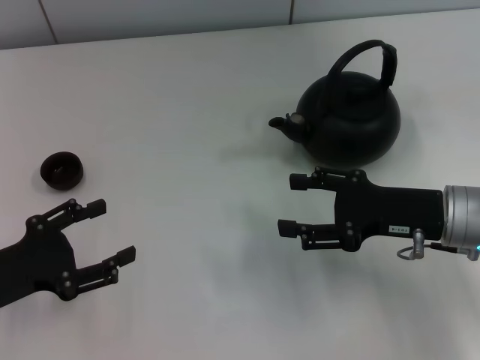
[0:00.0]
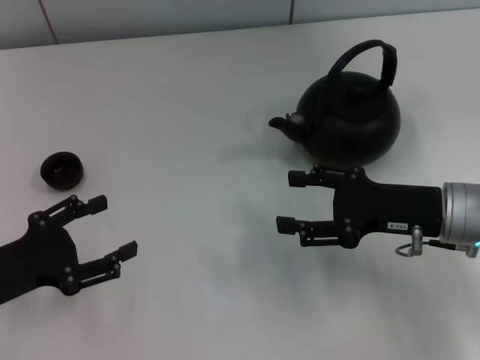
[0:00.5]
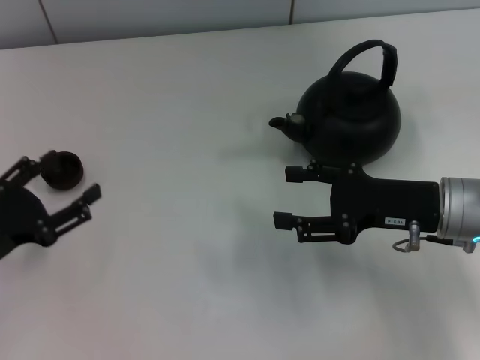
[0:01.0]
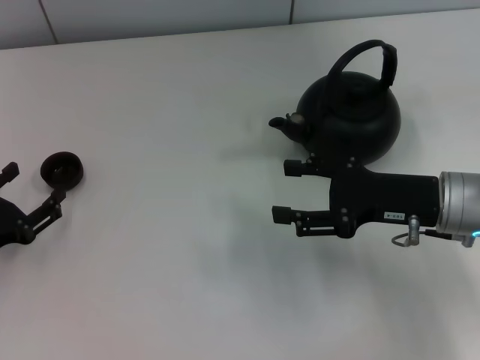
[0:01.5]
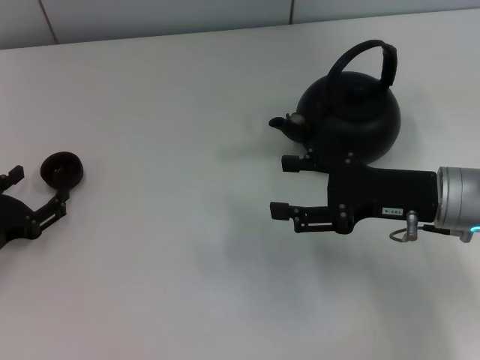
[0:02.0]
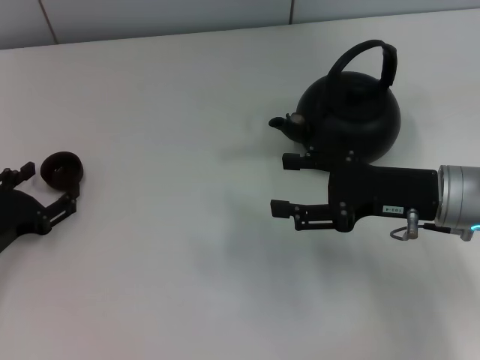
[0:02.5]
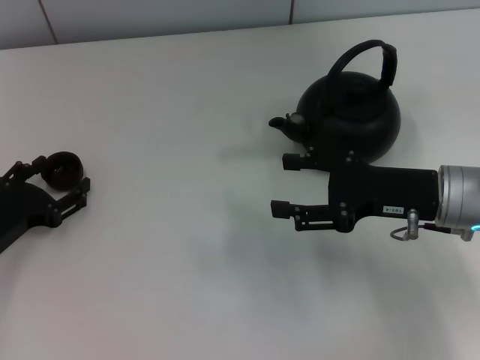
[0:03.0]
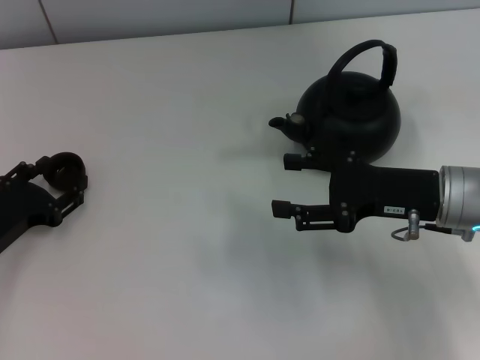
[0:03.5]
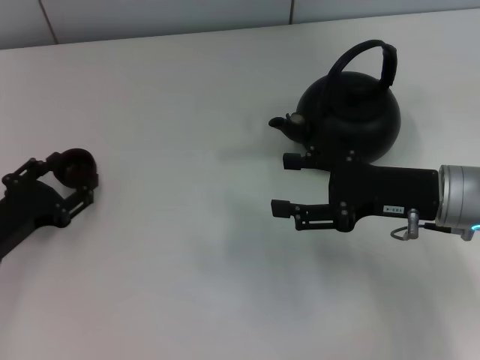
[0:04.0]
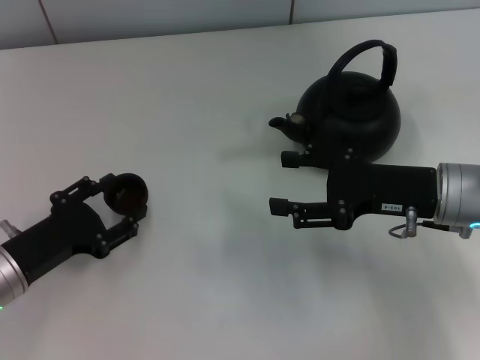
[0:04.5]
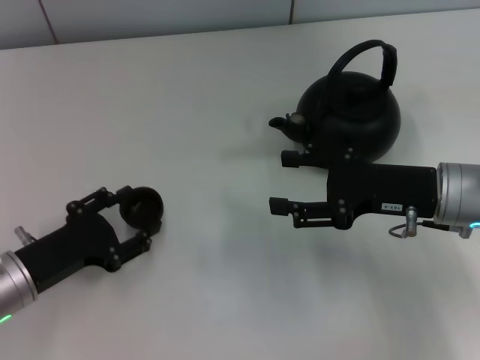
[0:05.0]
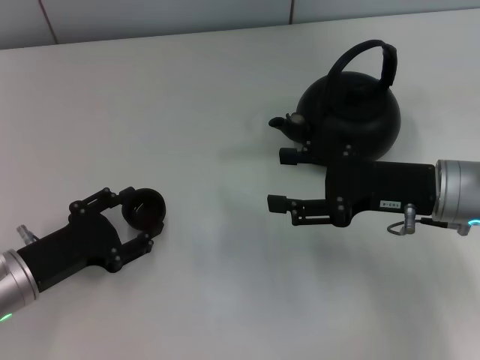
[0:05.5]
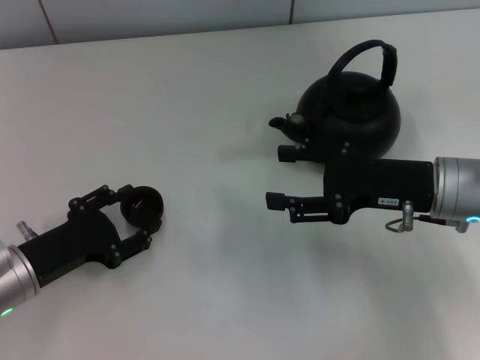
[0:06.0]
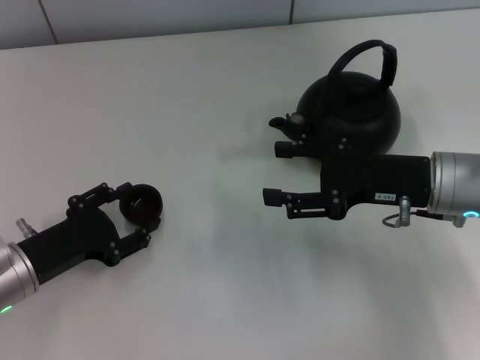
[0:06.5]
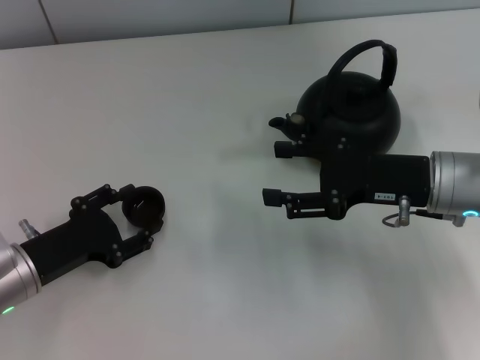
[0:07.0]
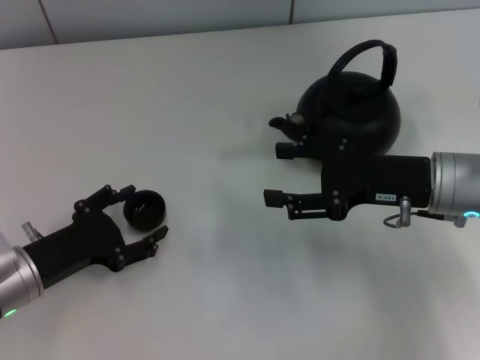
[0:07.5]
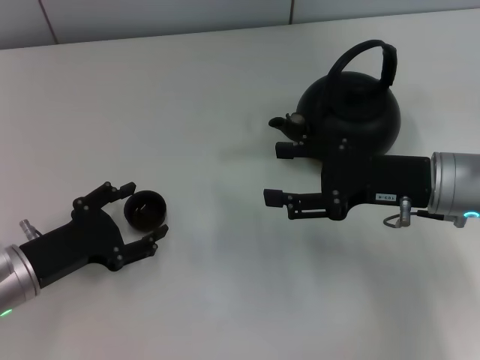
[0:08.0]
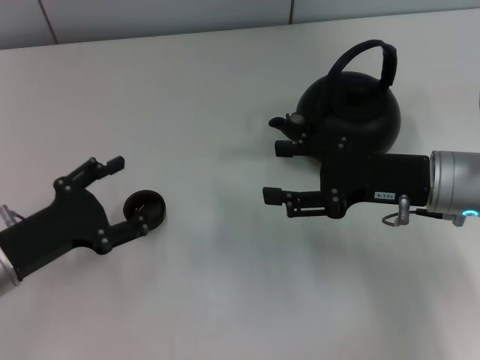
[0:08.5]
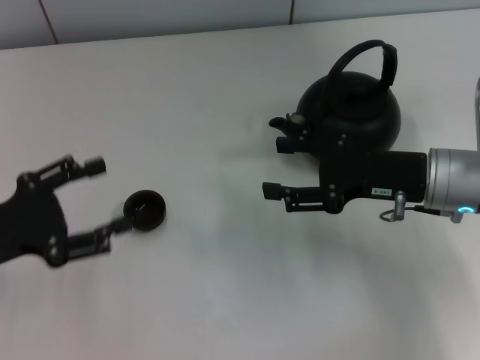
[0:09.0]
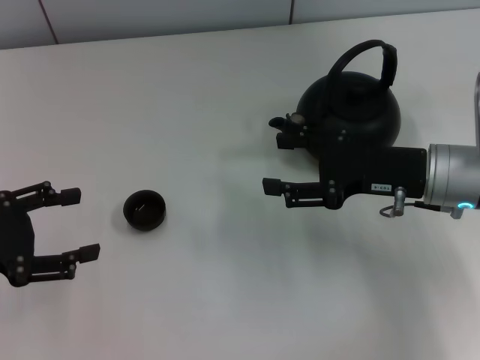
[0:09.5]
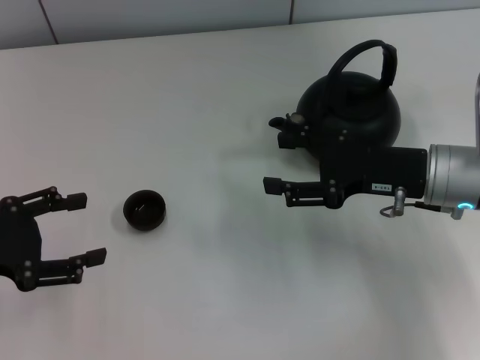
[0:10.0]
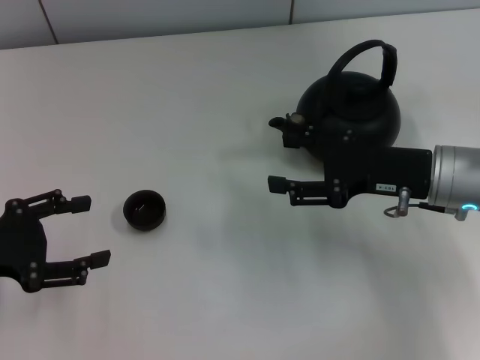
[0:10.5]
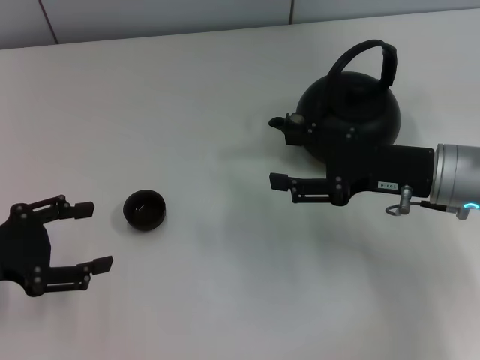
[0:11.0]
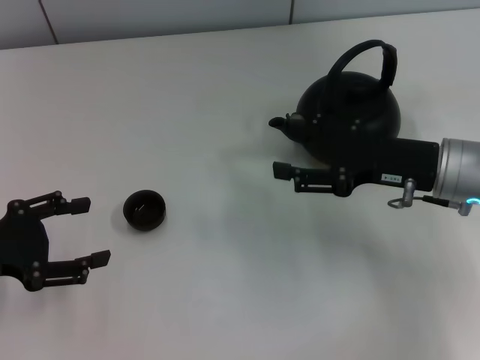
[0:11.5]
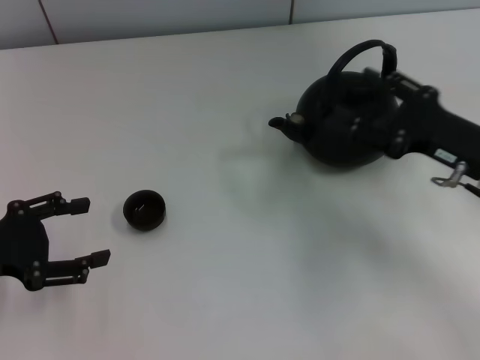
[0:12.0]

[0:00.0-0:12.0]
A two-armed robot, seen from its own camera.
Task of the whole recording: Grasp the handle of the teapot with one hand and pour tea into the teacup.
Step, 0:00.0 to 0:04.0: Pick up the teacup with the left gripper.
Step, 0:04.5 to 0:08.5: Place the teacup in the center of view with the left gripper.
0:00.0 to 0:02.0: The left gripper shifts by roughly 5 cm.
0:02.0 to 0:04.0: The left gripper closes up.
0:04.0 to 0:06.0: There are only small adjustments of the grippers.
0:06.0 to 0:08.0: The left gripper opens up.
0:08.0 to 0:10.0: The left gripper goes about 10 cm upward and to the left.
0:10.0 to 0:12.0: The right gripper shifts about 5 cm to the right.

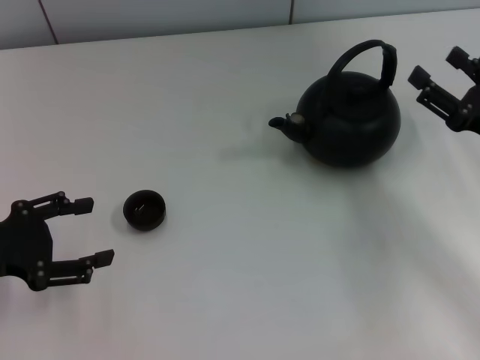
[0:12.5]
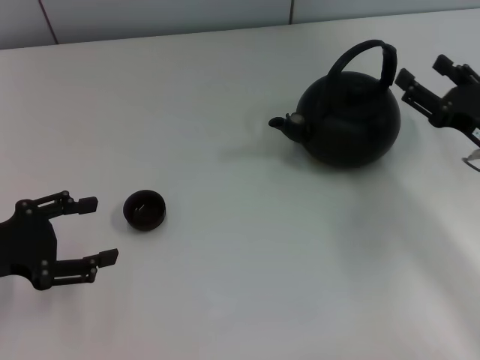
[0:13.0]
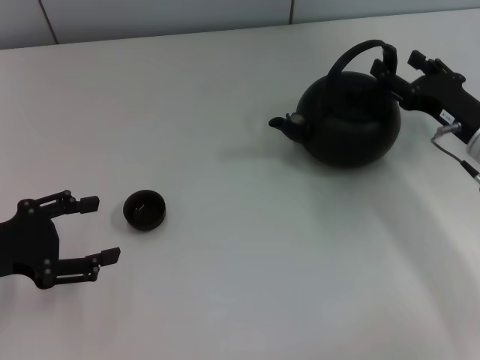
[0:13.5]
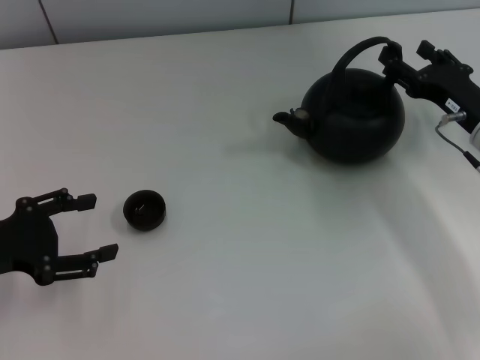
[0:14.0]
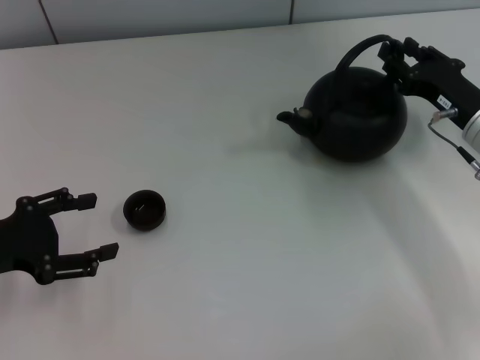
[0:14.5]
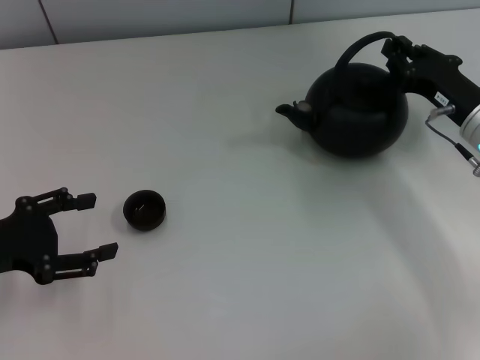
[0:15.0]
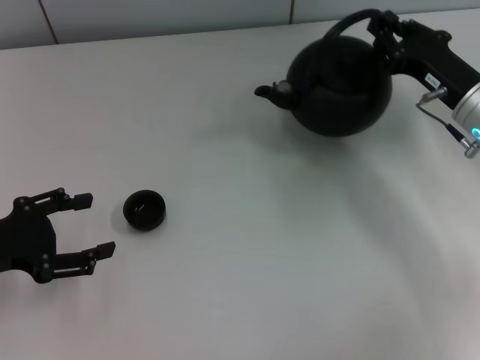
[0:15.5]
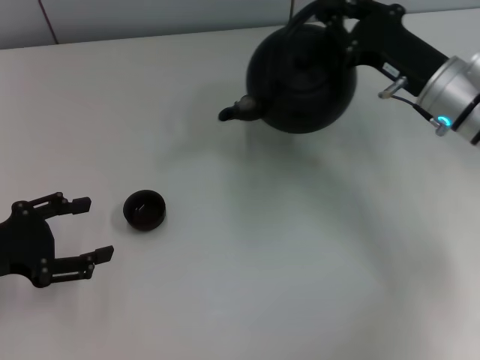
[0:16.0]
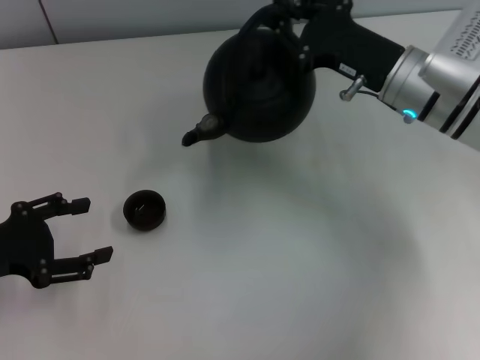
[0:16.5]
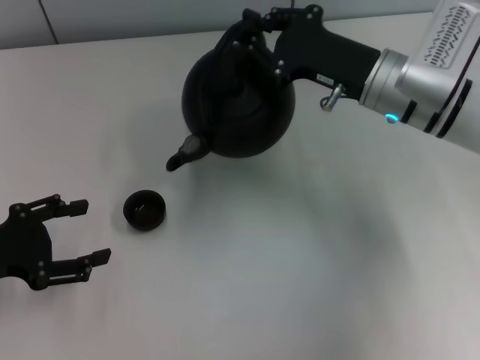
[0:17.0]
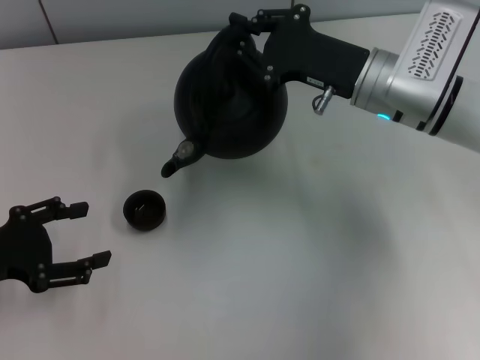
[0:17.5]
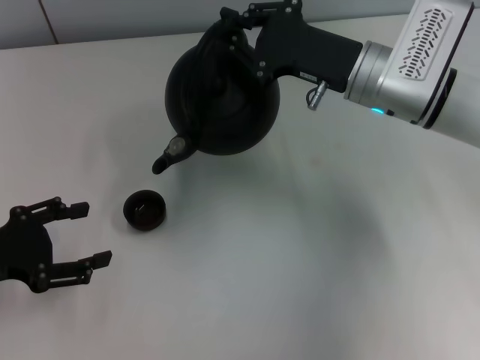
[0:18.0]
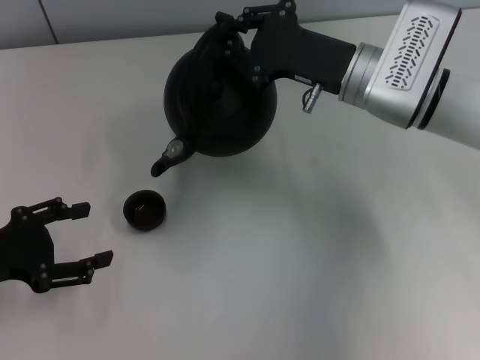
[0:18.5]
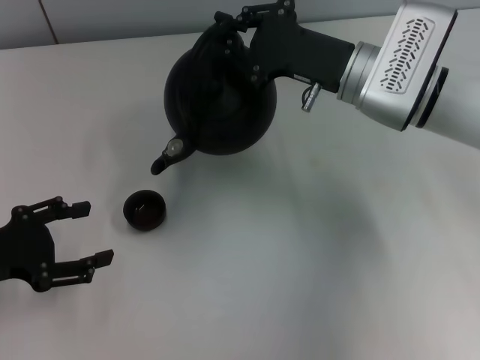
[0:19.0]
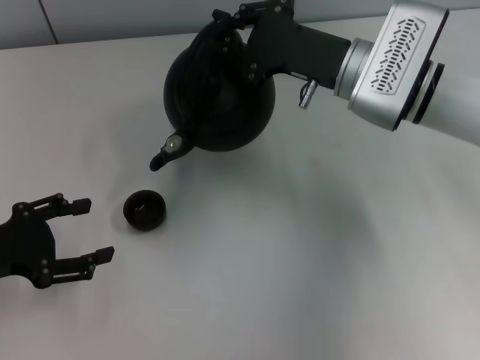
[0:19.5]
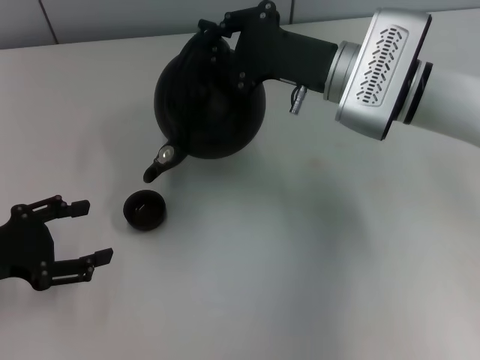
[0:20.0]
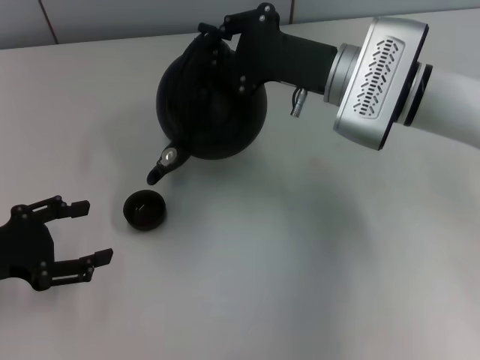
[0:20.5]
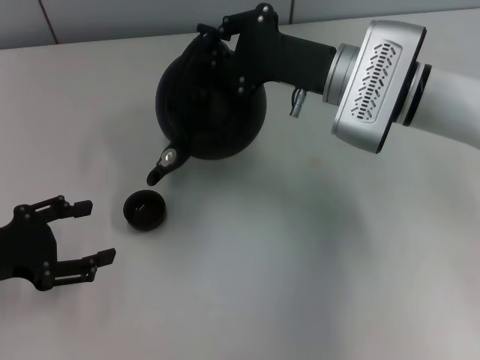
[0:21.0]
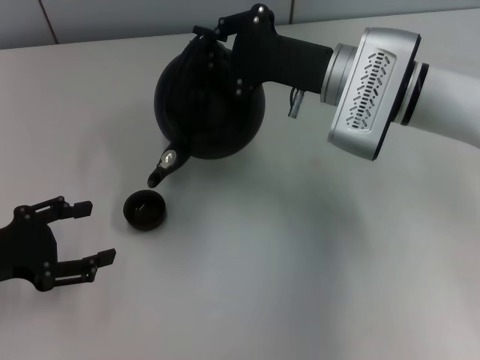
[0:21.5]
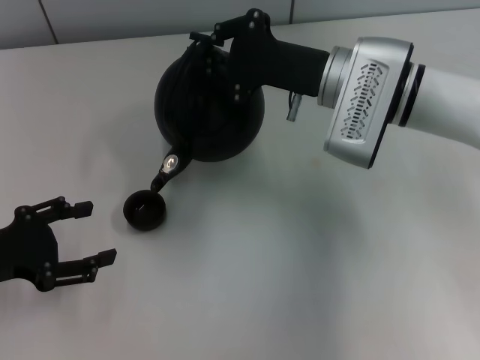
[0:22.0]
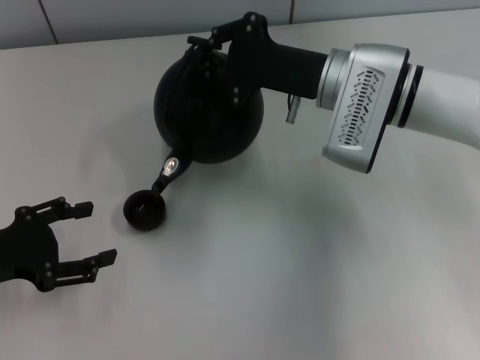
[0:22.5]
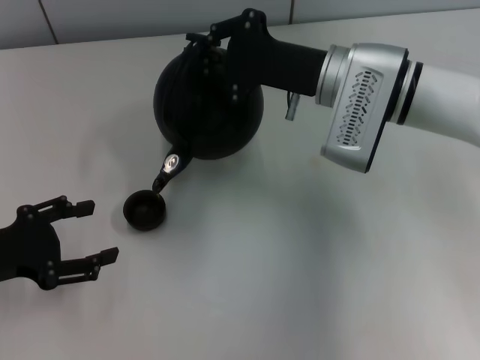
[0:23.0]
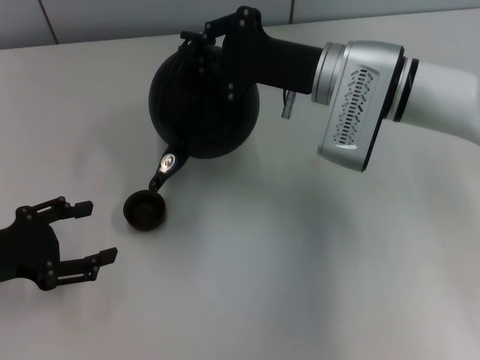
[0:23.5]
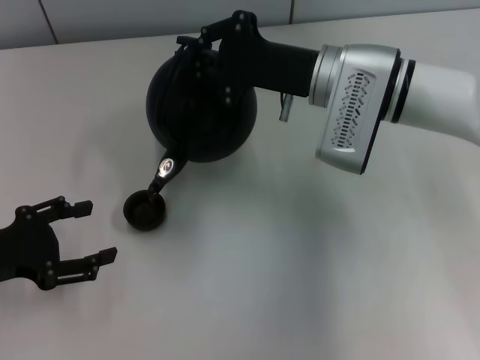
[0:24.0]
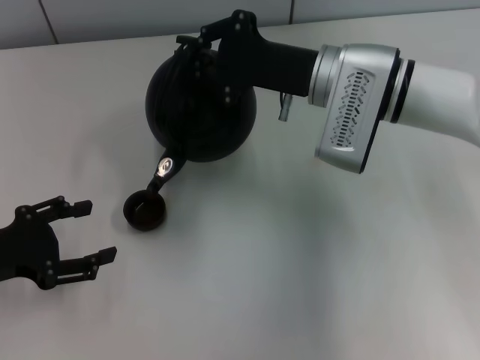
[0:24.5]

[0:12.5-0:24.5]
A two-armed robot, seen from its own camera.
Task of the whole recording: Grasp the handle of the teapot with one hand and pour tea into the teacup.
Step, 0:12.5 to 0:15.5: Pick up the teapot with the right gripper.
0:12.5 to 0:14.5: The right gripper travels forward by some 5 cm.
0:14.5 to 0:16.5: The right gripper travels to the left and upward by about 10 cm, and closes its fingers.
0:16.5 to 0:18.5: There are only small adjustments of the grippers.
0:18.5 to 0:20.5: The grippers move only a little.
0:20.5 to 0:22.5: The grippers make only small movements.
0:22.5 to 0:24.5: Both grippers stay put.

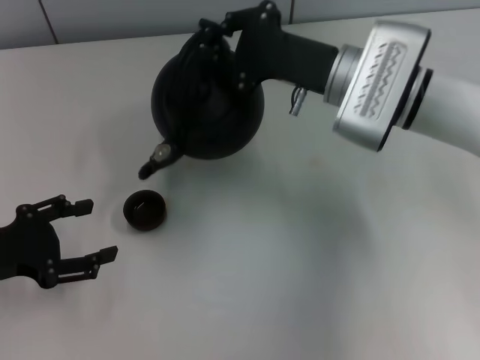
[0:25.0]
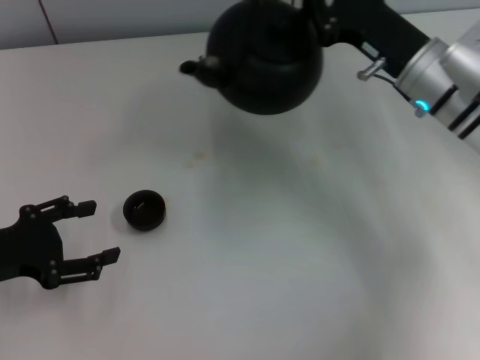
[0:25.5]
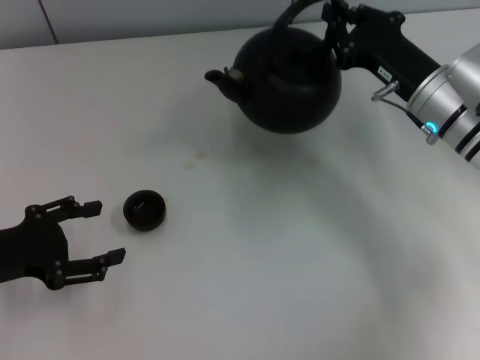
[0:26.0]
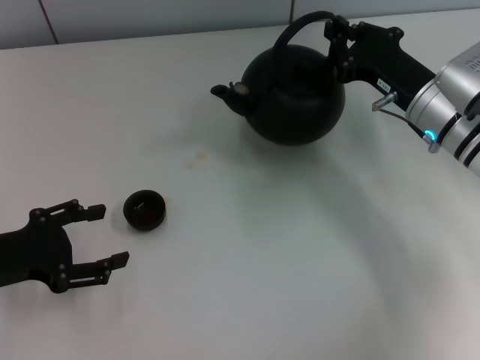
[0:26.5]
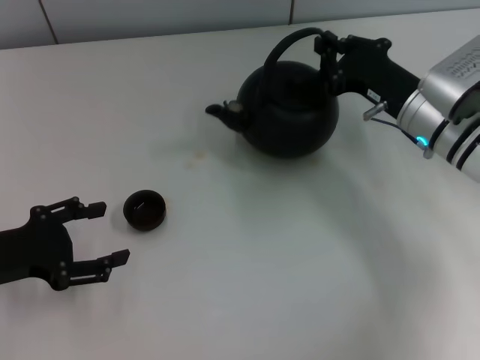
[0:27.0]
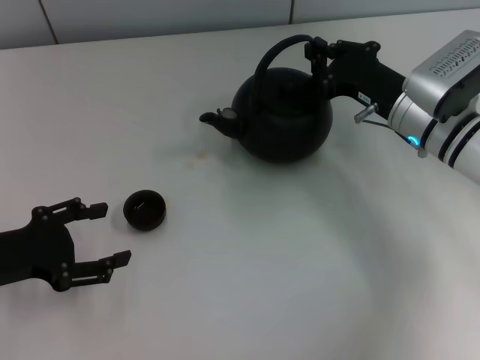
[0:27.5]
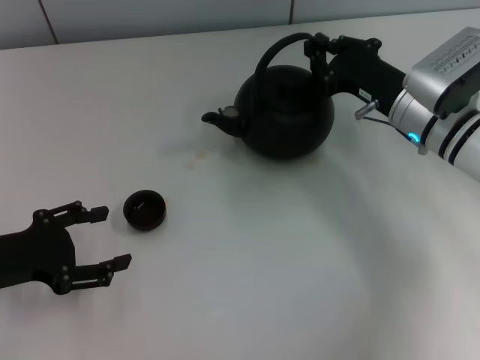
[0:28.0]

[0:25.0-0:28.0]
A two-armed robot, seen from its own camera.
Task of the whole recording: Grasp the handle of the teapot with one hand and pour tea into the teacup.
0:25.0 to 0:26.5: The right gripper moves to the right, approximately 10 cm.
0:26.5 to 0:28.0: The grippers move only a little.
